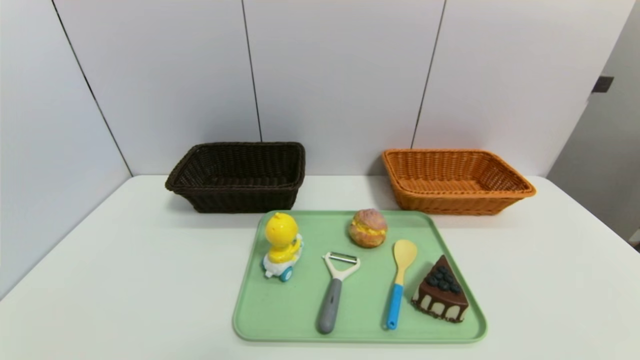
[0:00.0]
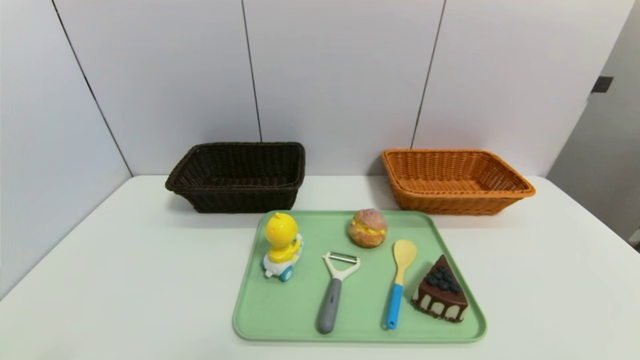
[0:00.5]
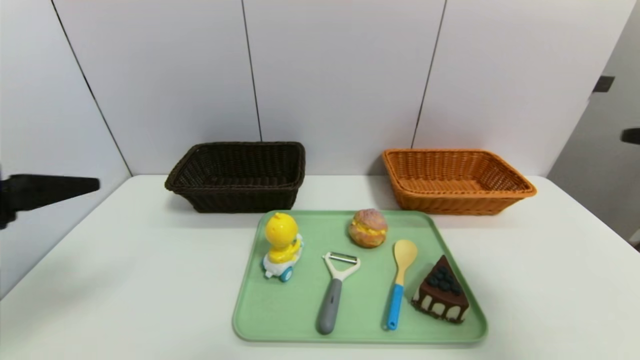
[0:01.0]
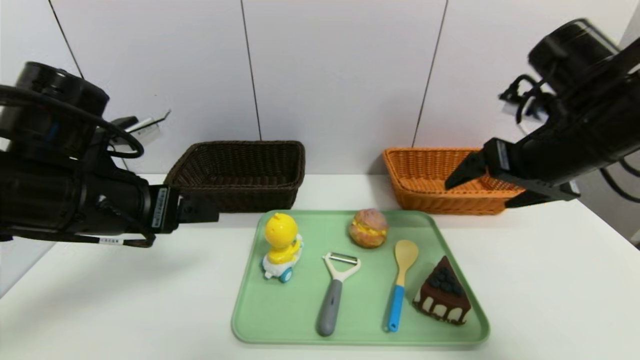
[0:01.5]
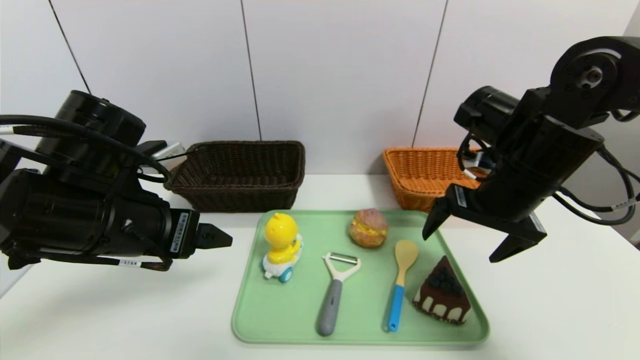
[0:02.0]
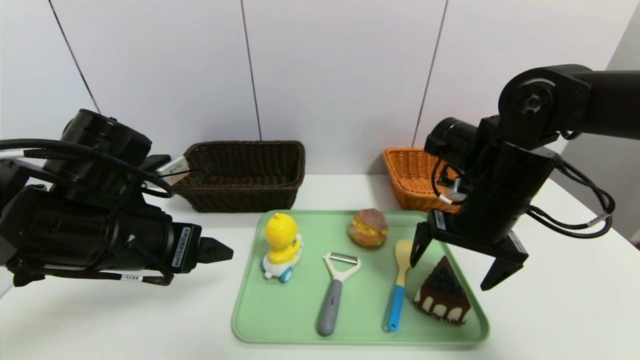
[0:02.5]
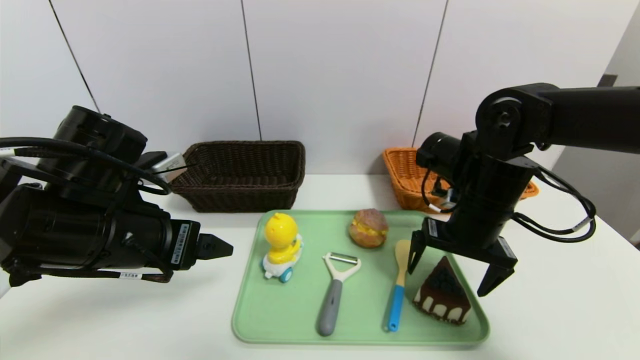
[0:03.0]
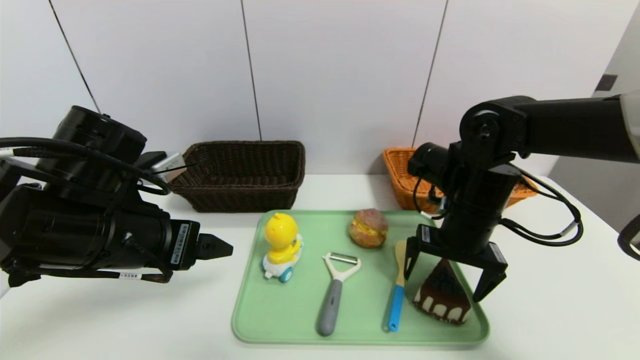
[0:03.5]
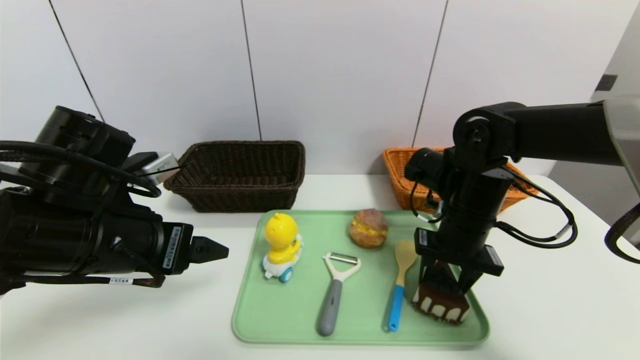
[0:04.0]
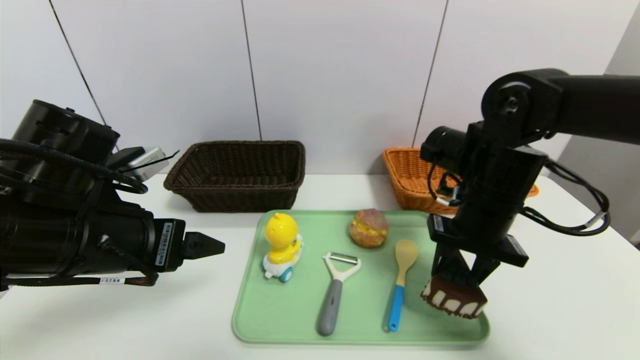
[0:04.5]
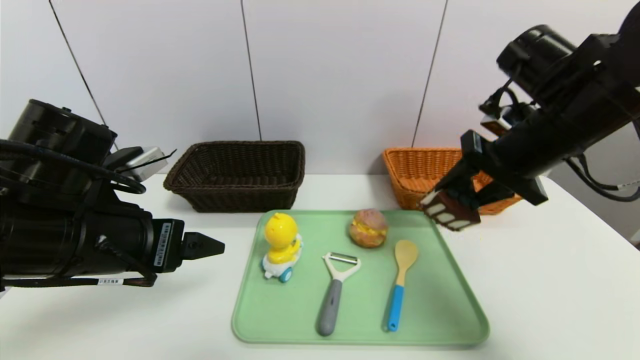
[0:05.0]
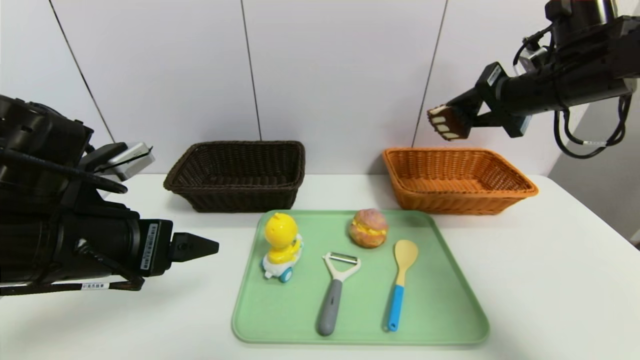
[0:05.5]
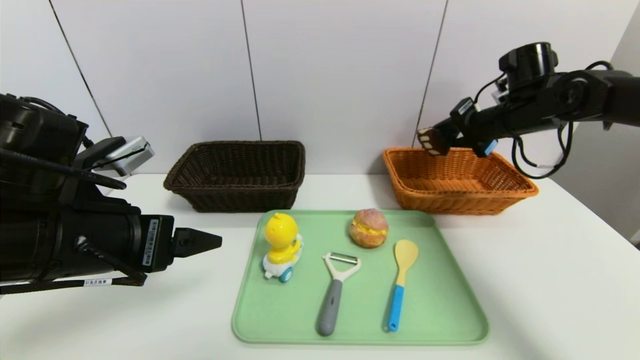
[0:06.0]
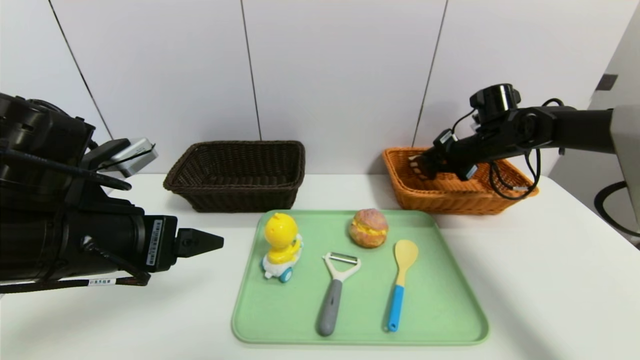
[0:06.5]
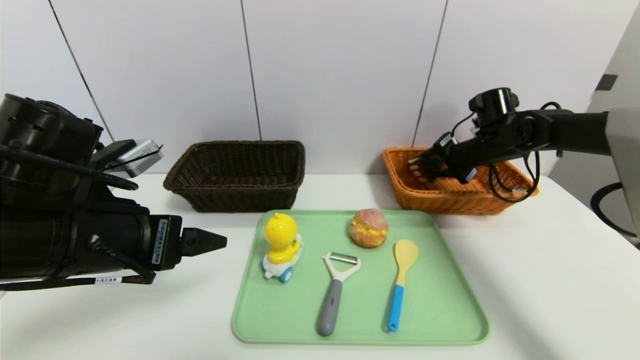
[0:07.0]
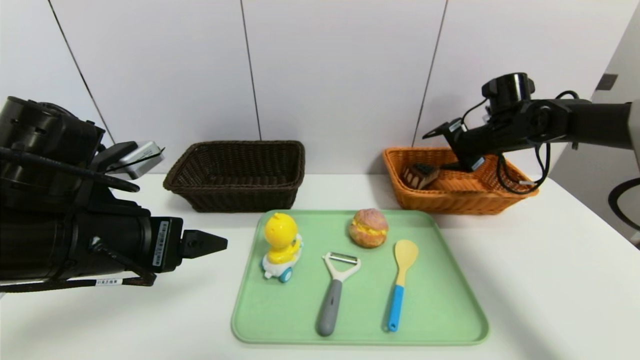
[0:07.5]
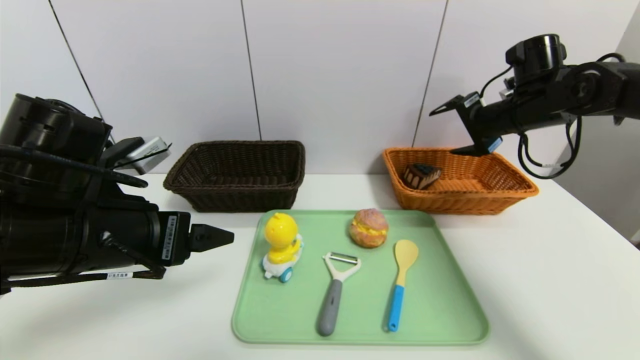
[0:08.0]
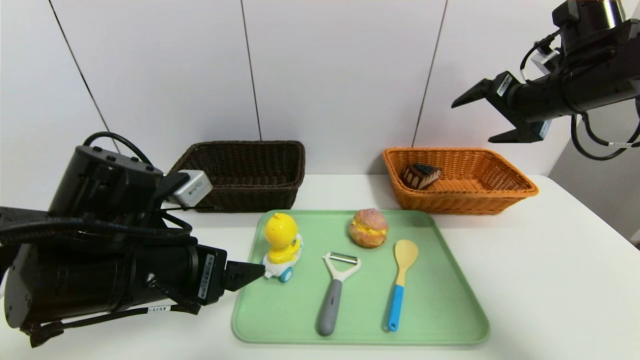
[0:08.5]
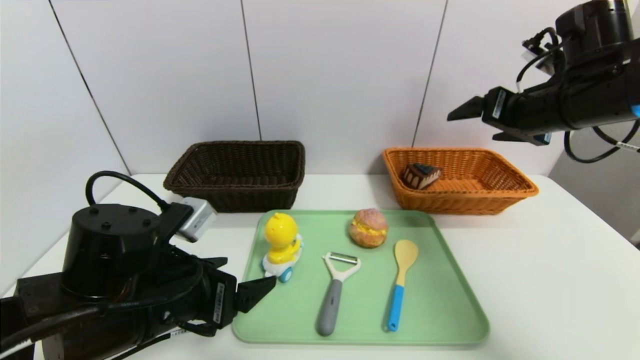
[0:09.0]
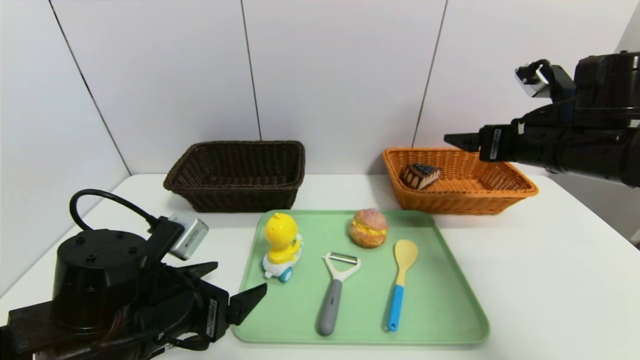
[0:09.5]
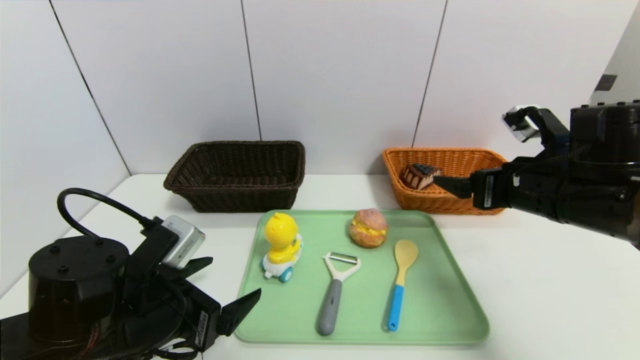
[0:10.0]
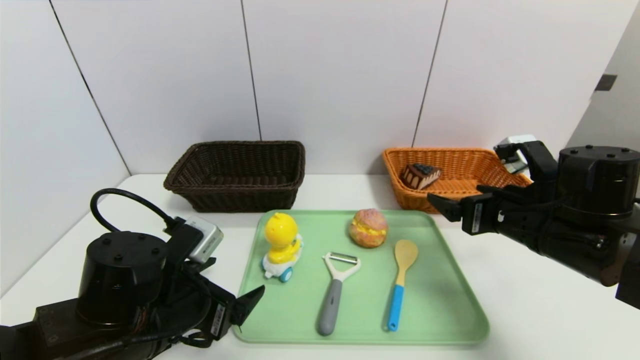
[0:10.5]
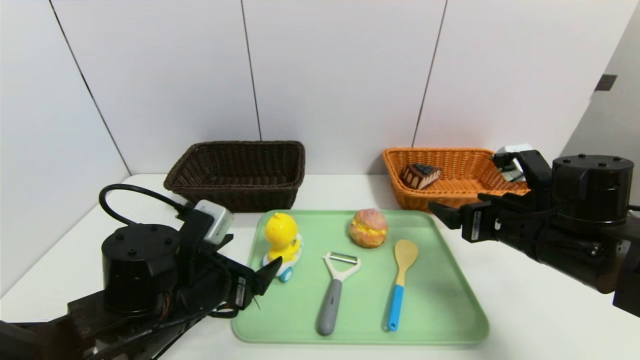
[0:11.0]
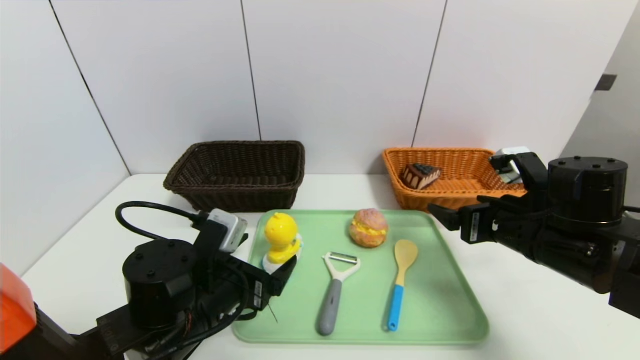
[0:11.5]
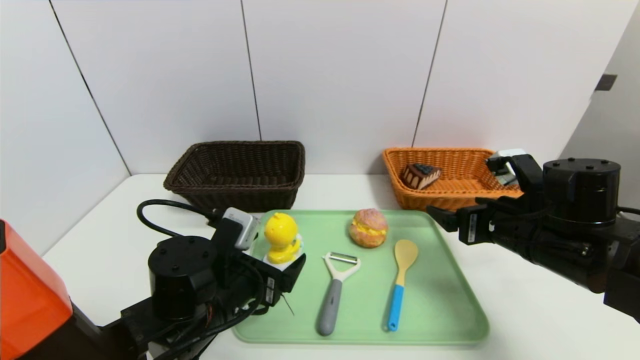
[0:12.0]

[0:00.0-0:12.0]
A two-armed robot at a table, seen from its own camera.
Task of the whole recording: place the food in the right basket with the right gripper, and place the non food items in the left basket with the left gripper.
Step, 0:00.0 to 0:07.5: Grasp the triangle cake and put it in the right basket.
0:00.0 to 0:02.0: The right gripper shifts about 35 cm forward and upward. Meanwhile the left gripper shifts approximately 30 cm forward, upward and to the right.
0:02.0 to 0:04.0: The right gripper travels downward by roughly 5 cm, and closes.
0:04.0 to 0:06.0: The right gripper travels forward, to the right and upward by approximately 20 cm.
0:06.0 to 0:08.0: The right gripper goes downward and returns, about 5 cm each way, and opens.
0:08.0 to 0:10.0: The left gripper goes some 10 cm downward. The right gripper shifts about 15 cm backward.
0:10.0 to 0:12.0: The left gripper travels to the right and forward by about 10 cm, while the right gripper moves downward, about 5 cm.

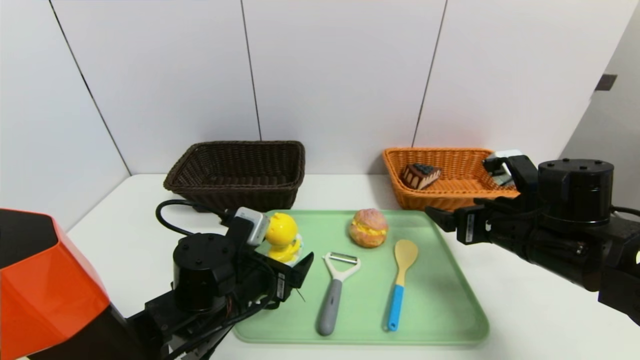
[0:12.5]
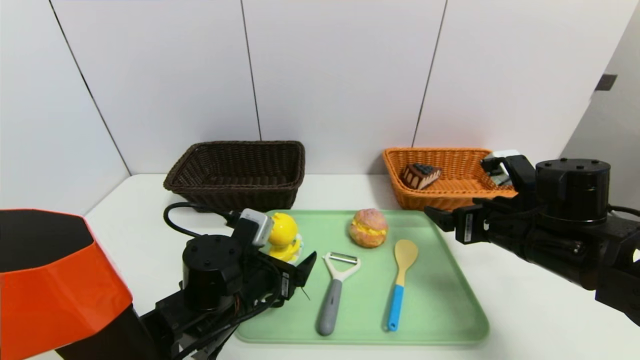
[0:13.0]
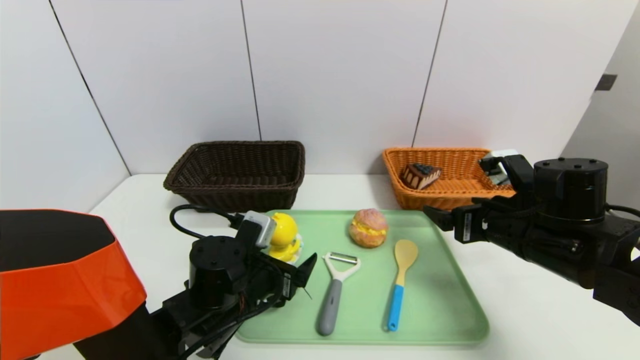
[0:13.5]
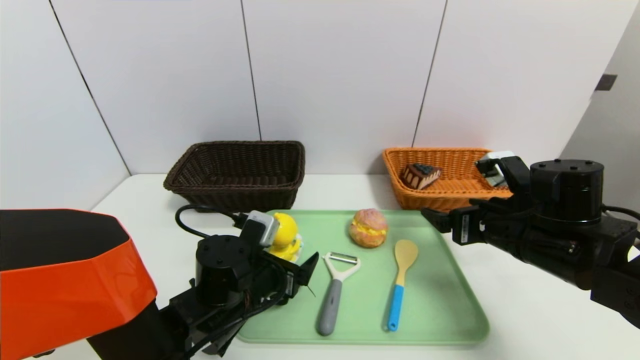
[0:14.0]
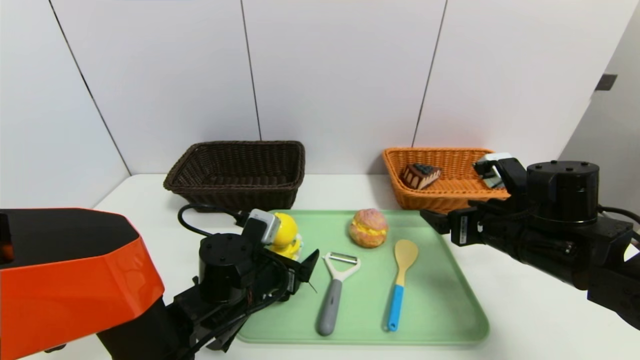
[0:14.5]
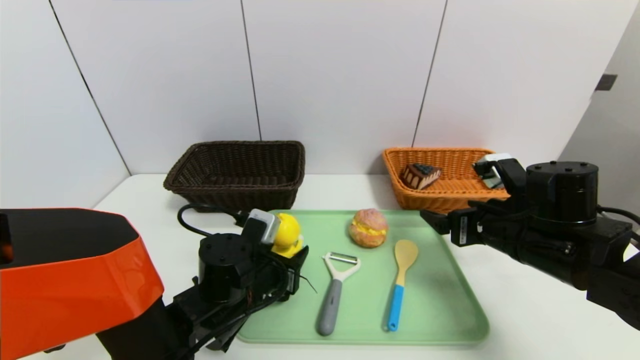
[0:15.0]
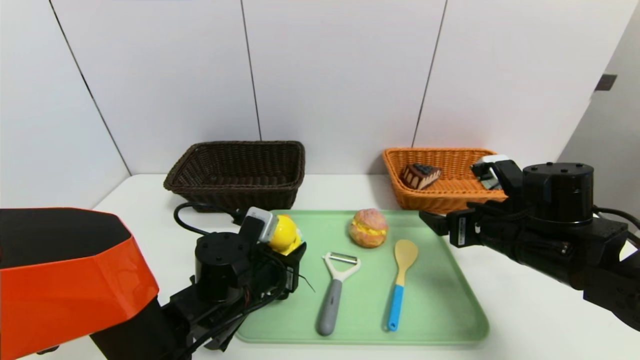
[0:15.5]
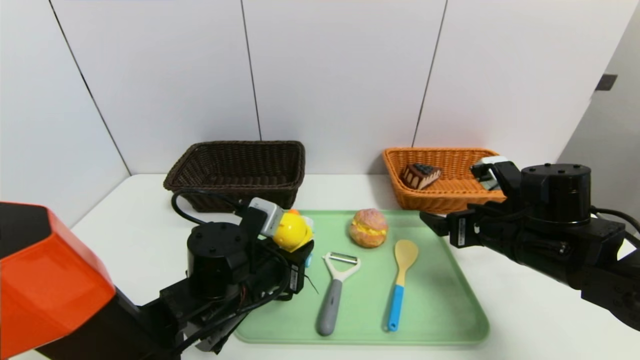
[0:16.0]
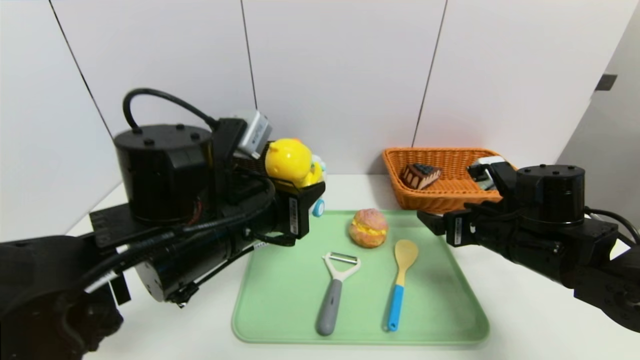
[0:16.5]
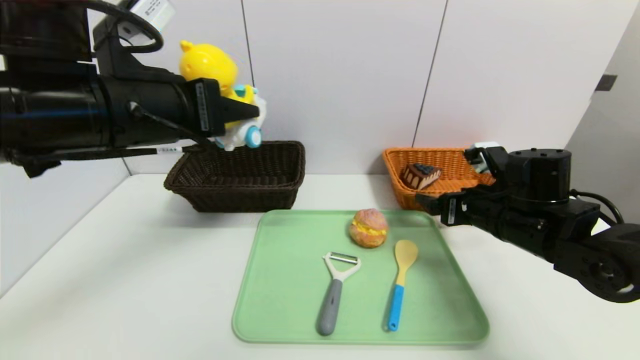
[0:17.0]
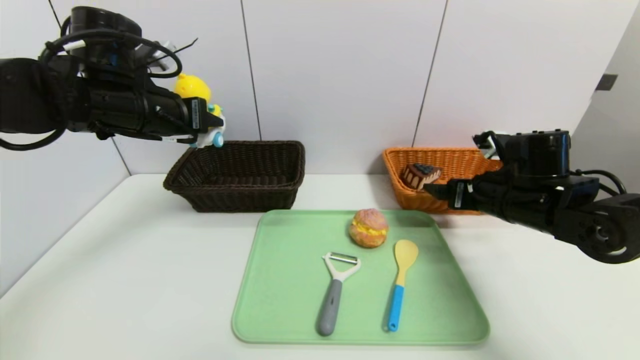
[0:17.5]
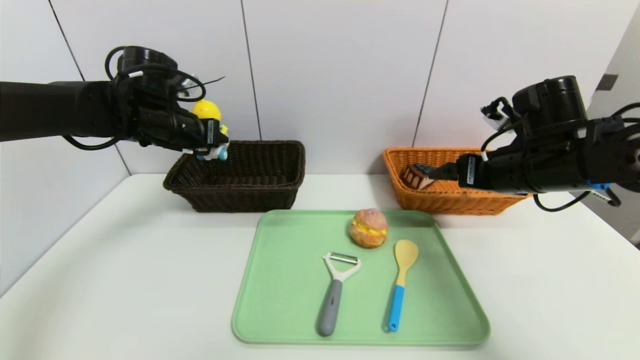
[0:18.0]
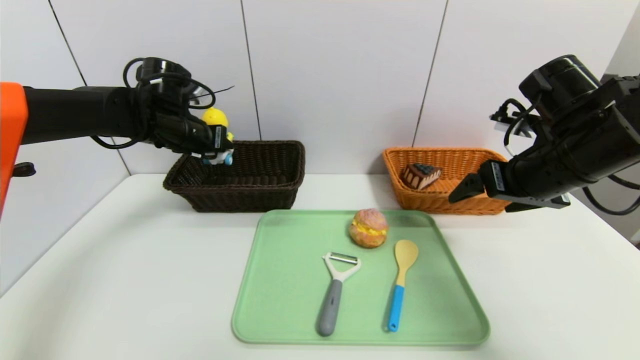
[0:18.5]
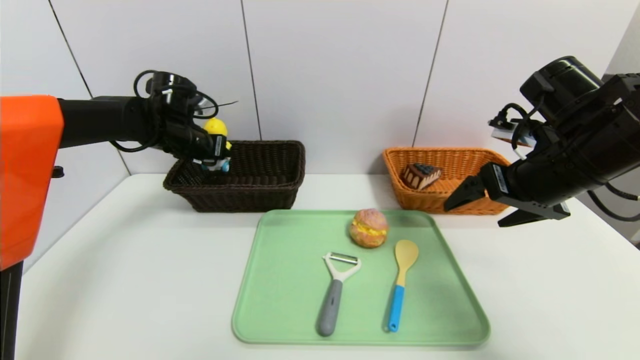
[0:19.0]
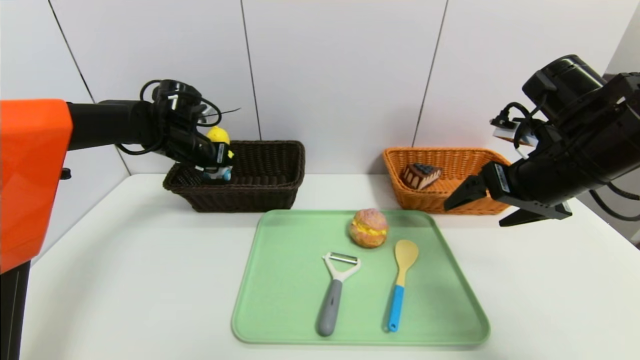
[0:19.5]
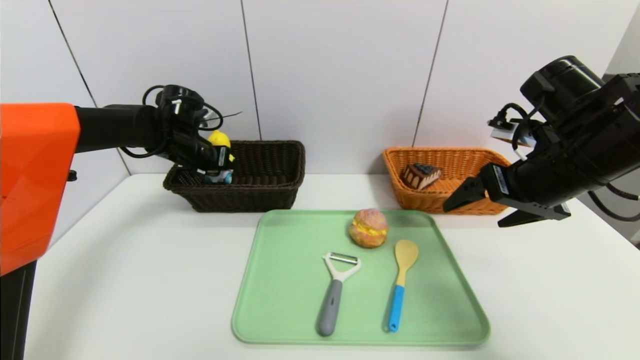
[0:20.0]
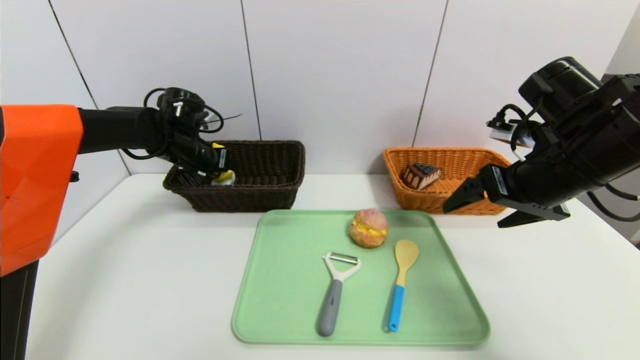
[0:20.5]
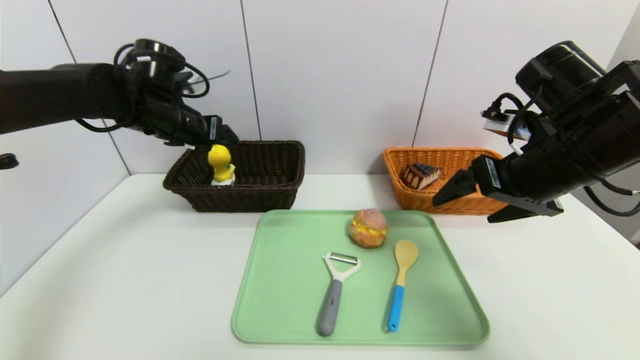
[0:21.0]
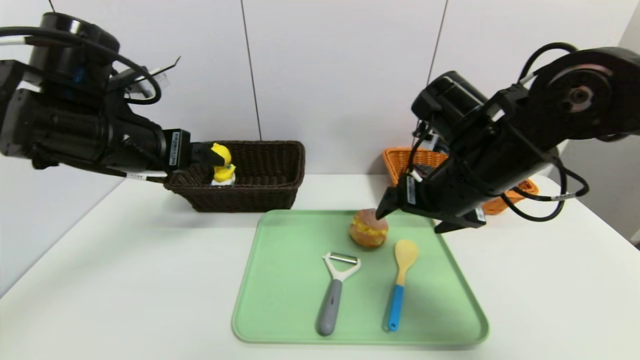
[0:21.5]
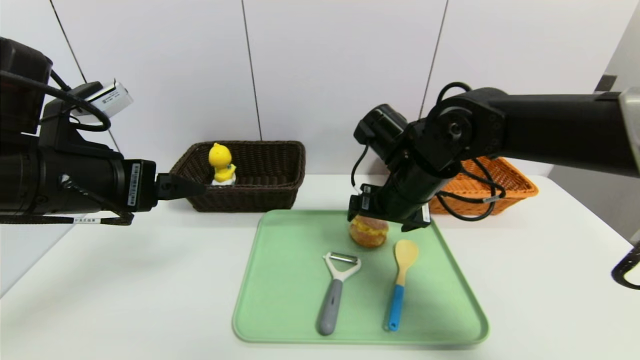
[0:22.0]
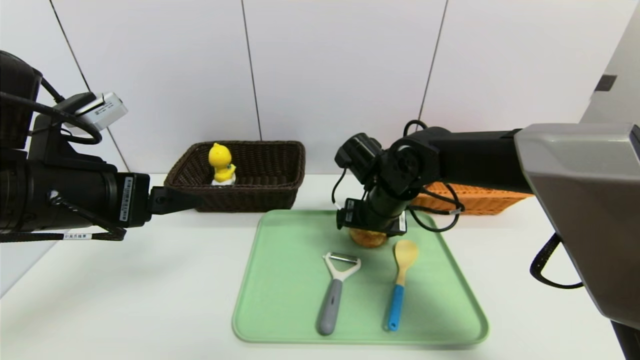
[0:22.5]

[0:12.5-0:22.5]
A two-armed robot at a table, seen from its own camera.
Task of the whole recording: place the food in the right basket with the right gripper, and place the non food items in the left basket with the left gripper.
Step, 0:12.5 to 0:21.0: Grasp the duck toys and put it in the left basket.
0:12.5 to 0:14.5: There are only small adjustments of the grippers.
0:14.5 to 0:16.5: The left gripper is displaced upward by roughly 15 cm, and closes up.
0:16.5 to 0:18.5: The right gripper is displaced upward by some 10 cm, while the left gripper moves forward and to the left, roughly 25 cm.
0:18.5 to 0:20.5: The left gripper moves approximately 5 cm.
0:20.5 to 0:22.5: The left gripper travels backward by about 25 cm. The right gripper shifts roughly 20 cm to the left, downward and forward.
